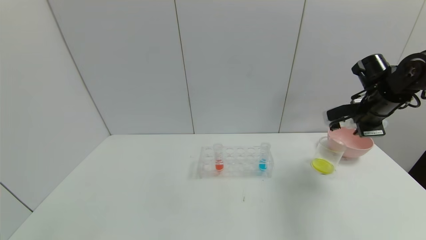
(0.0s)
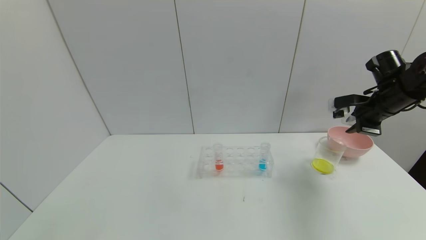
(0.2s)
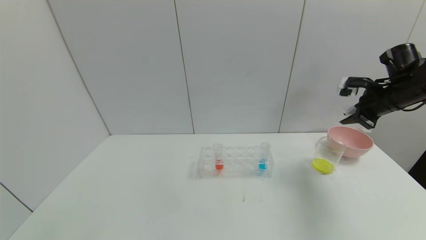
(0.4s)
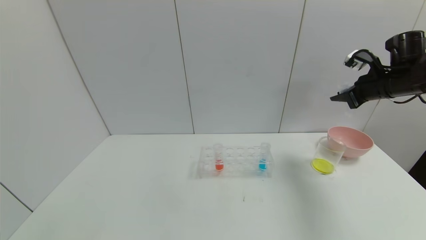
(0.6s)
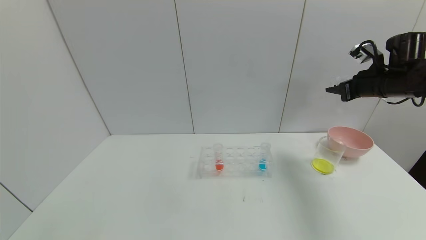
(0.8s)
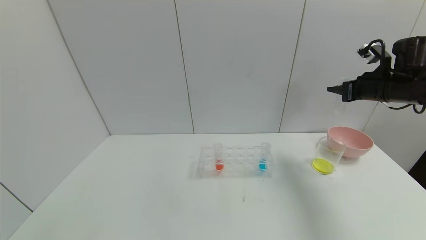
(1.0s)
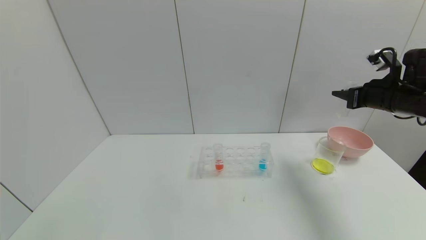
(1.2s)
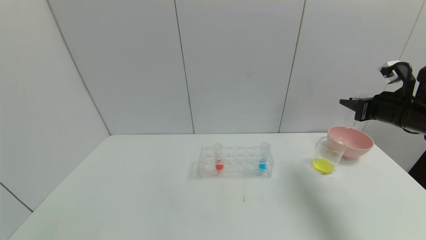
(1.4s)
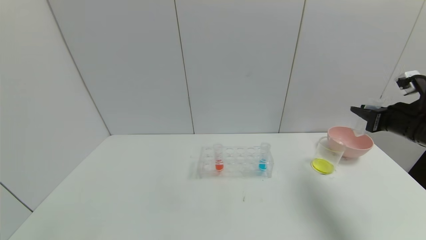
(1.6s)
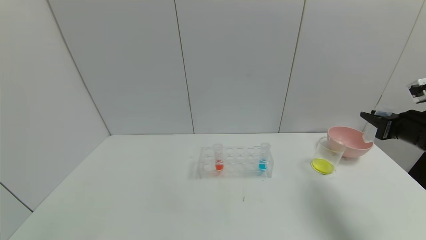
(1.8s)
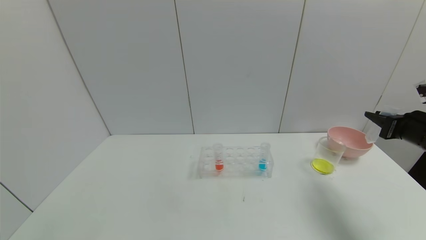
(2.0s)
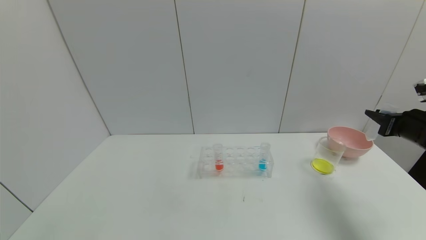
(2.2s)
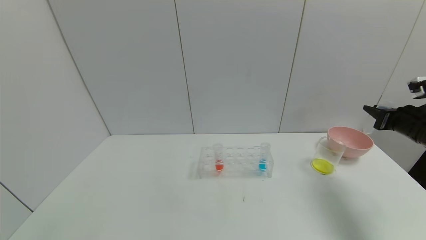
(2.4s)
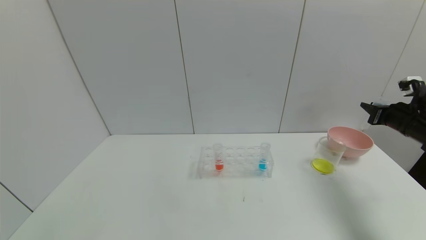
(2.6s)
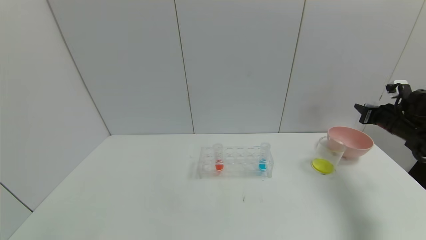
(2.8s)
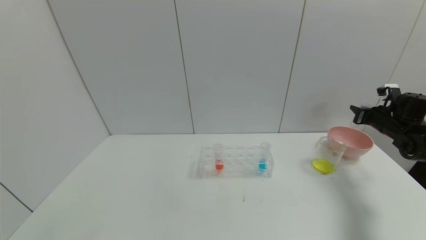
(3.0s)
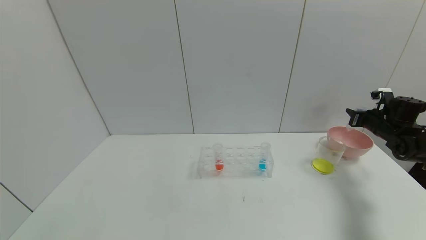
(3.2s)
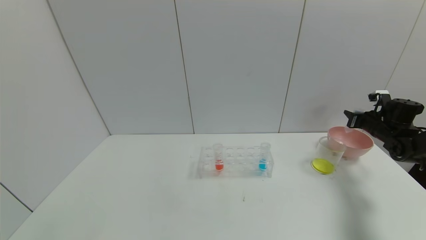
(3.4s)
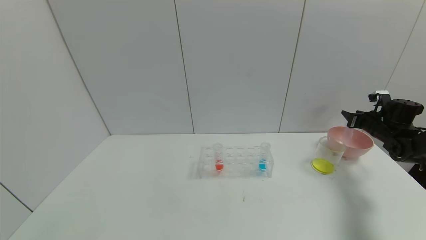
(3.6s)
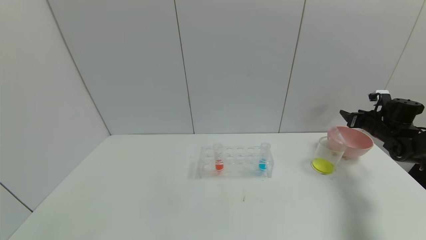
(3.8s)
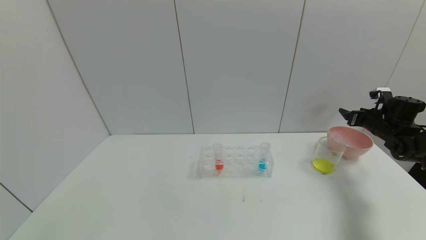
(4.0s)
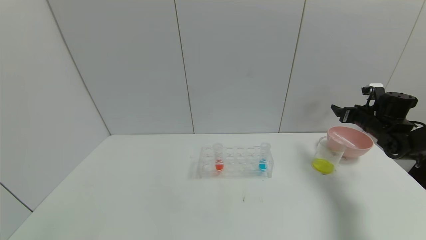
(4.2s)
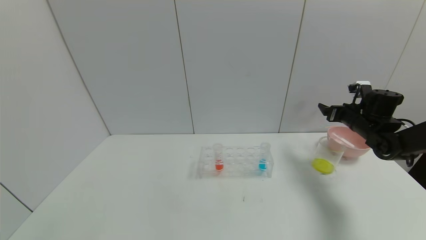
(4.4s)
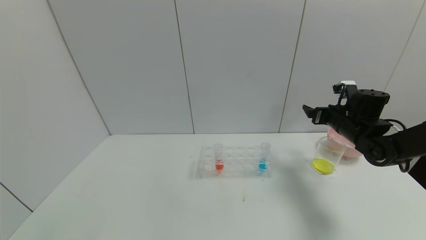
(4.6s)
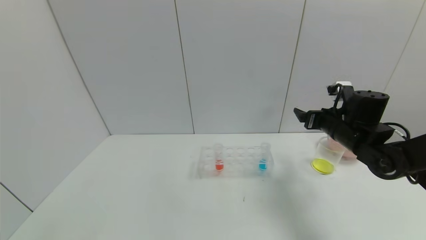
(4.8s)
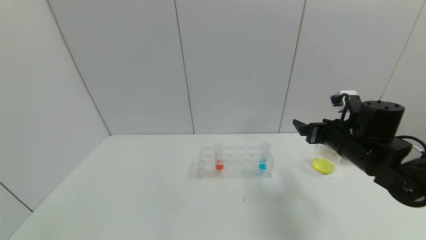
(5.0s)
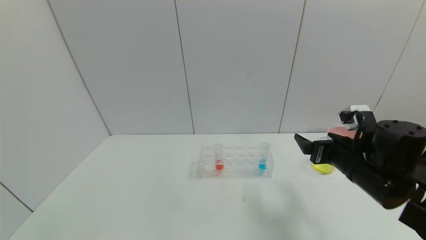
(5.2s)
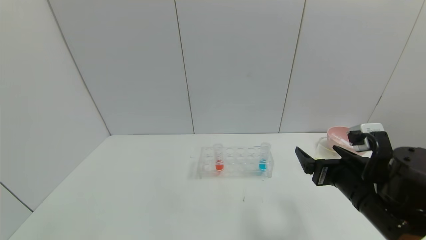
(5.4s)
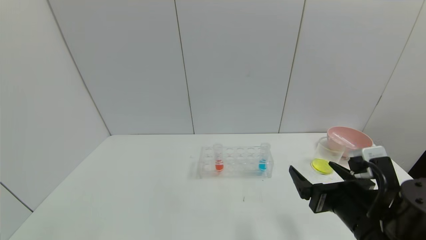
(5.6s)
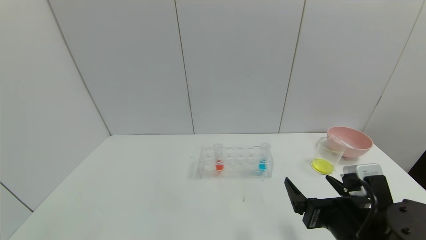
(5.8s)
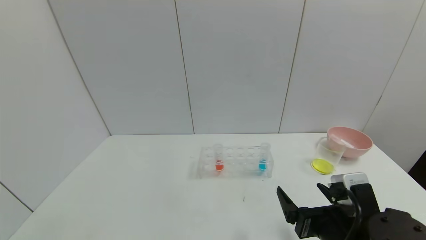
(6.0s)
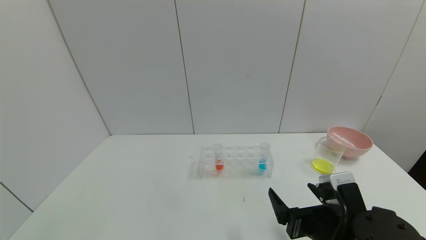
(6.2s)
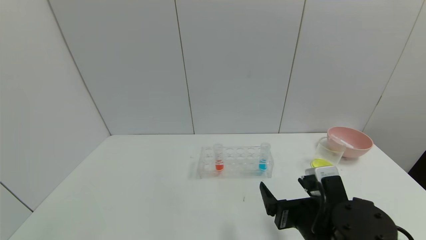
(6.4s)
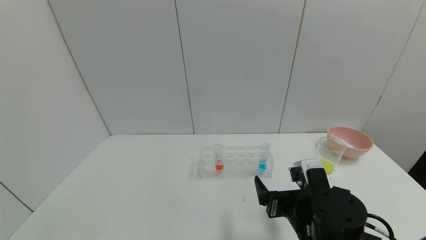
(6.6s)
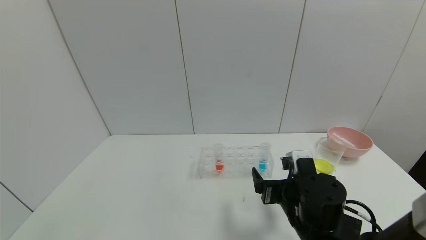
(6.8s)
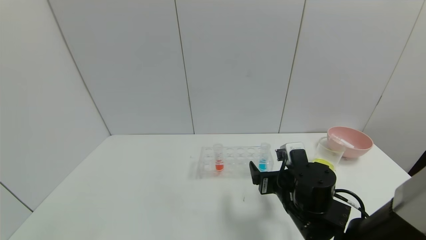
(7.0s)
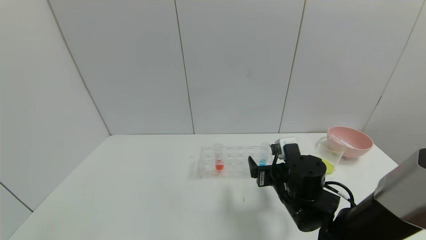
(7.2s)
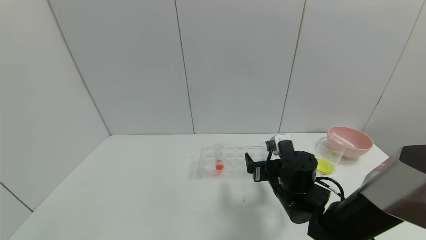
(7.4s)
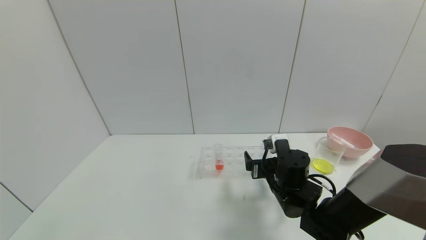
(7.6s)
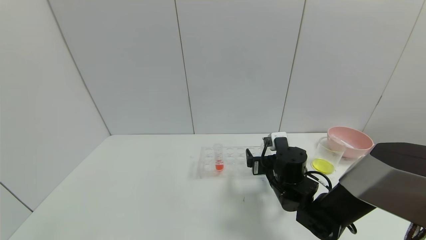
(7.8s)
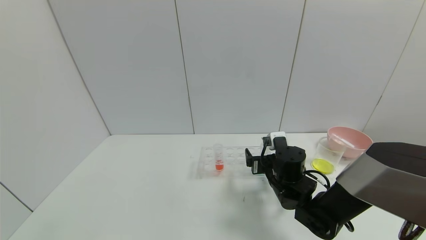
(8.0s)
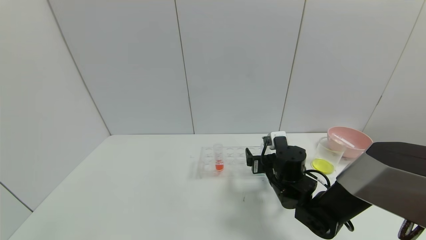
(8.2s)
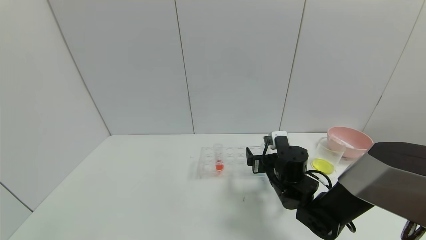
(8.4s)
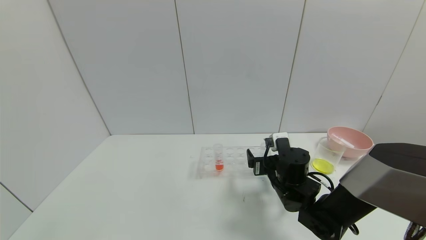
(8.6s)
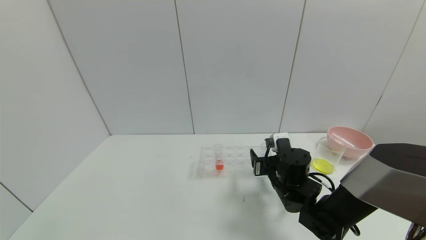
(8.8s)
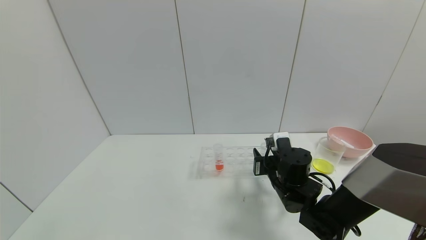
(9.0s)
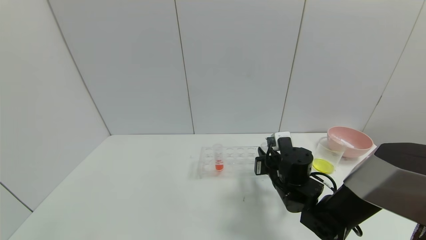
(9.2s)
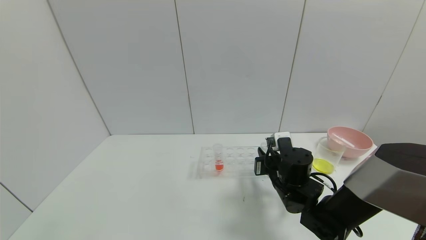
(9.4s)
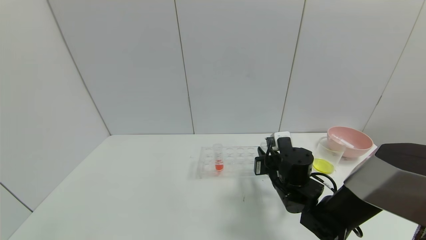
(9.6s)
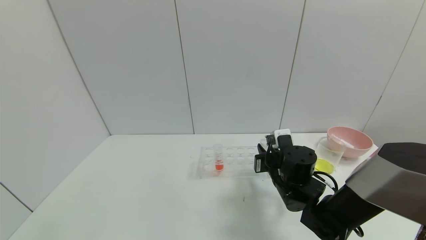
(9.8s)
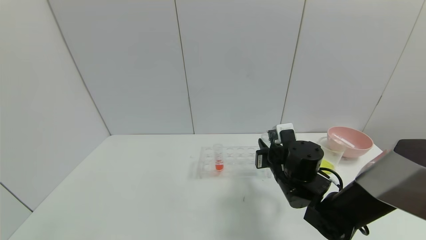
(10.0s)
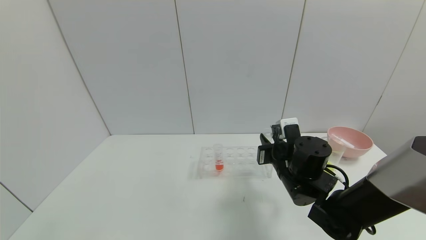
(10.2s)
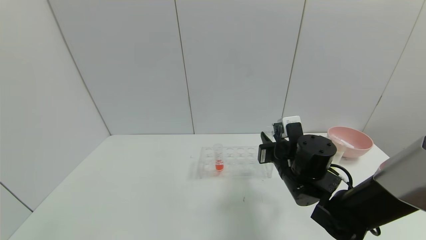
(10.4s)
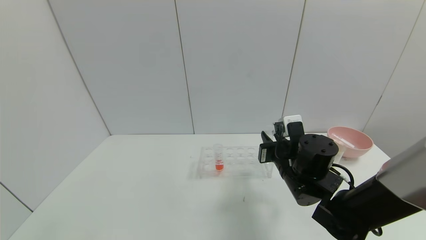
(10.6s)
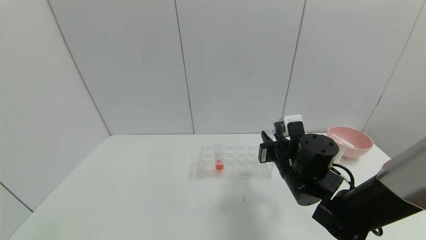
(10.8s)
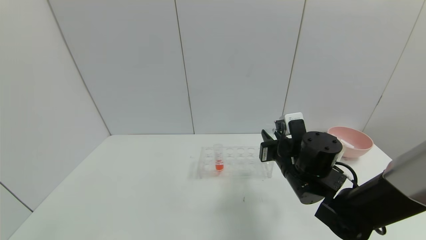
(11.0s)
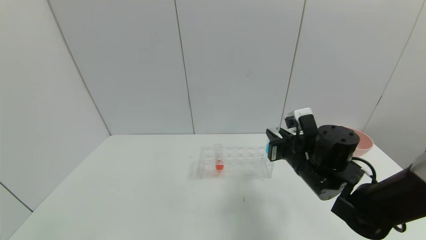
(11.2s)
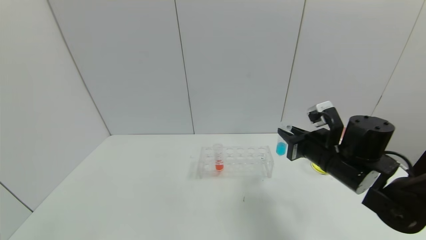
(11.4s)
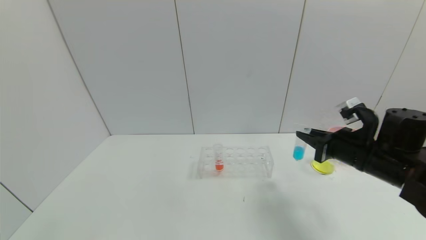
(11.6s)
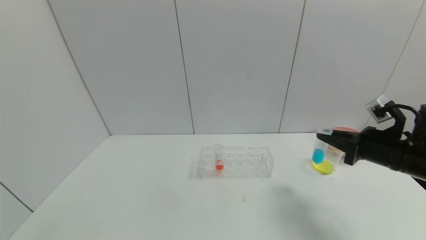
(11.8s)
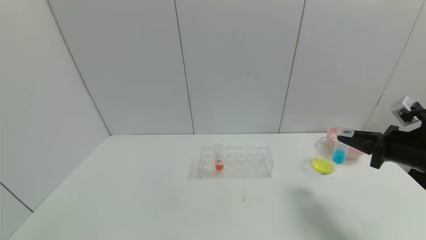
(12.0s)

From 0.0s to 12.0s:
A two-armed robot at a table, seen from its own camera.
Task of the whole recording: pick up the test tube with yellow pigment and the test tube with blue pigment by grippers and pour them into the beaker.
Step, from 0.0s to 4.2s: Place the test tube into the bowl with the right gripper.
Step, from 4.4s to 9.2s: Grasp the blue reagent with the right gripper.
From 0.0s to 1.6s: The right gripper moves backward, about 10 cm.
From 1.6s to 3.0s: The right gripper is displaced forward, to the right and downward by about 15 cm.
From 3.0s to 4.4s: The right gripper shifts approximately 10 cm to the left, and opens up.
From 4.4s to 6.0s: The right gripper moves backward and to the left, approximately 35 cm.
From 6.0s to 7.6s: The right gripper goes about 15 cm forward.
From 7.6s to 9.0s: The right gripper closes up.
From 9.0s to 10.4s: The right gripper moves some 5 cm.
From 10.4s to 12.0s: The right gripper shifts roughly 25 cm to the right.

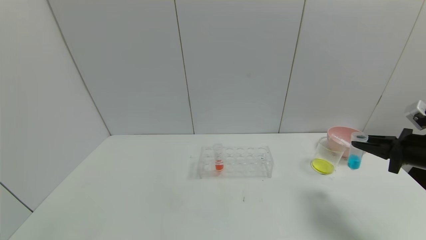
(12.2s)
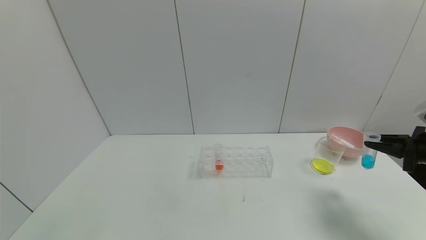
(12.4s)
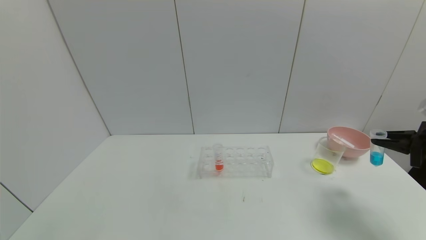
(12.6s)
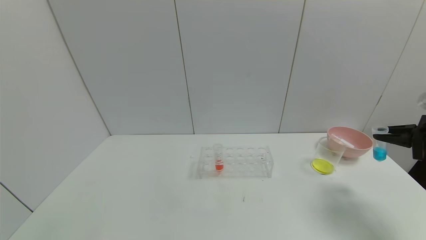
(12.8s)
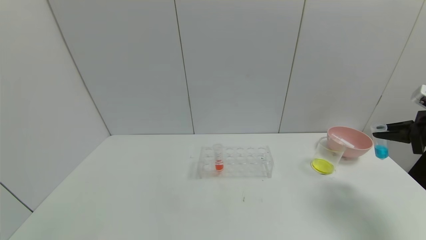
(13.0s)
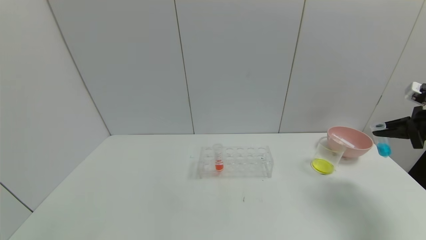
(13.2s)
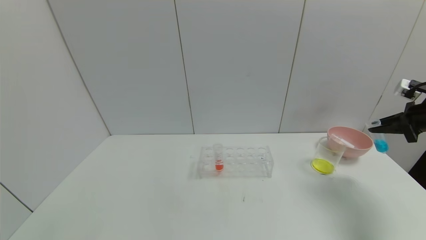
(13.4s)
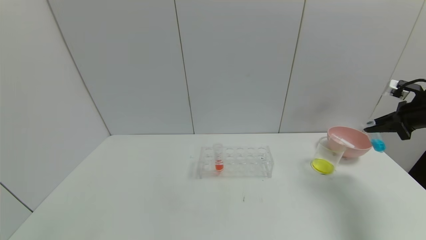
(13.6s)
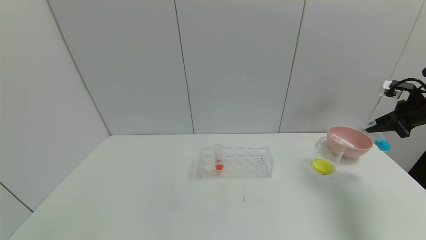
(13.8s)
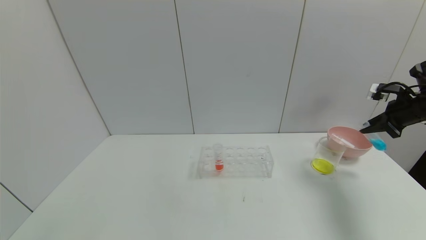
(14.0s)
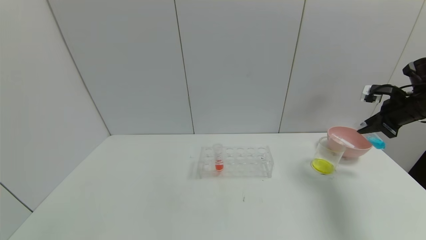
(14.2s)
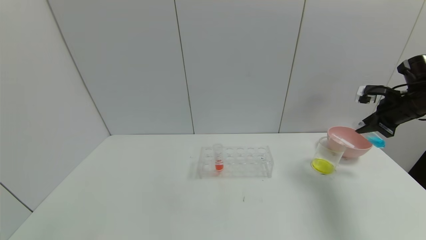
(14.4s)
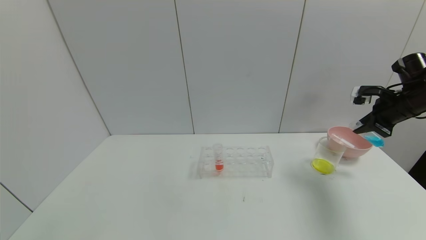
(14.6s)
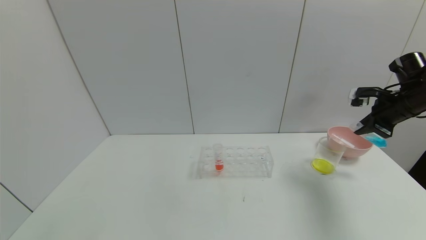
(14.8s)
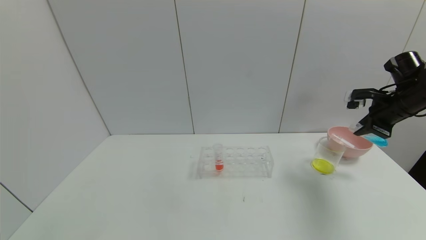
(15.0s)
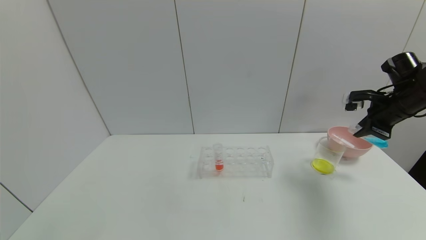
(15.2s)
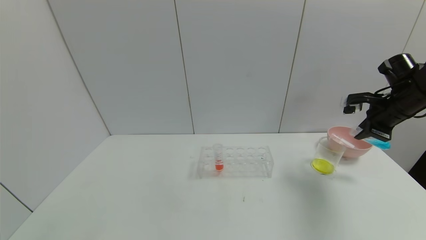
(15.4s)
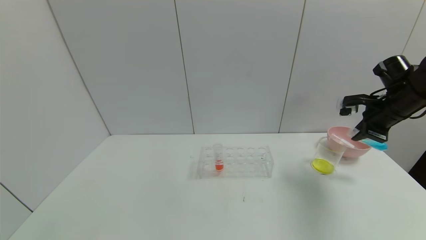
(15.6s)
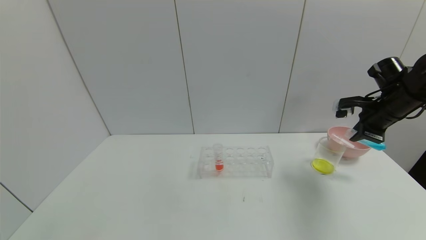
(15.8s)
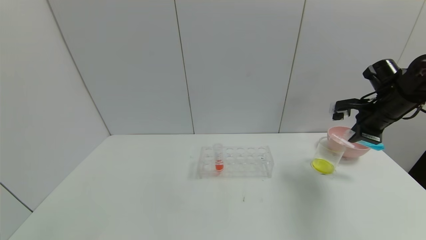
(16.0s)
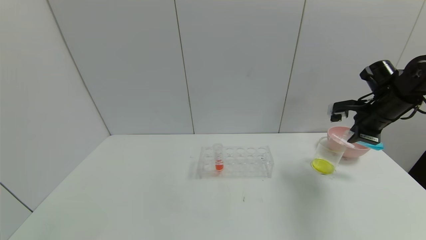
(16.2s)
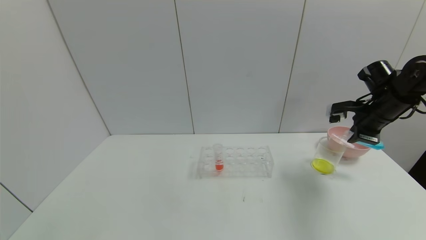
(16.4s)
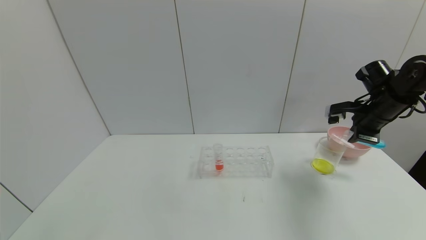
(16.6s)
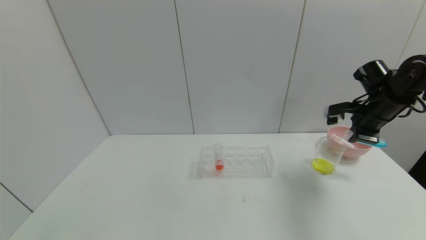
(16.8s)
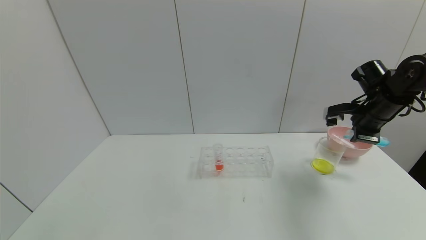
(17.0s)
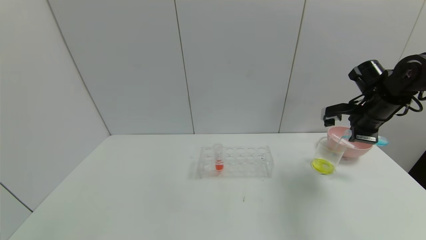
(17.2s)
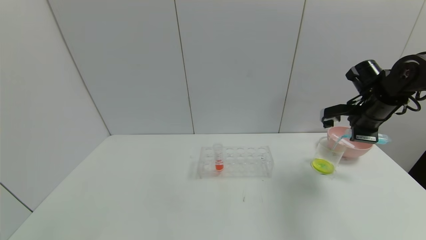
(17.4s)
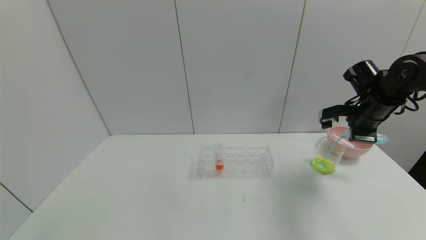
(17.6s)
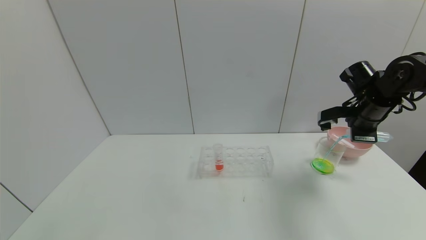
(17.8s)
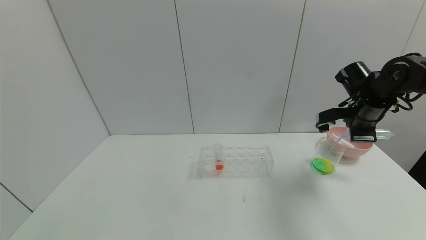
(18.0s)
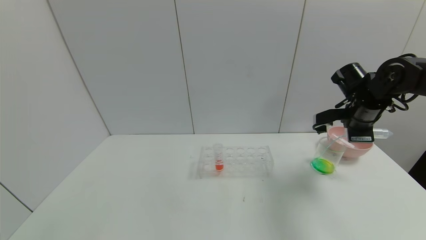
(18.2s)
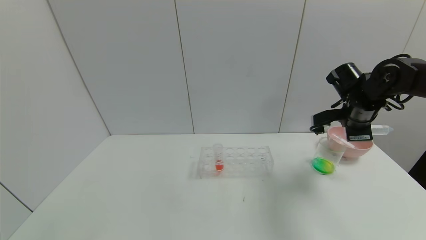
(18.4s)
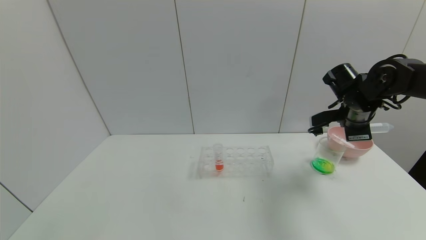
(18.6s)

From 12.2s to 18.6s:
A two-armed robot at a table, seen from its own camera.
Task of the whole recording: pick up the test tube with yellow pigment and the test tube with blue pigment by grippers and pour them into the beaker.
From 12.2s to 13.8s: The right gripper is displaced forward, upward and to the right by about 15 cm.
From 13.8s to 15.4s: The right gripper moves to the left, roughly 10 cm.
From 15.4s to 17.0s: The grippers move only a little.
From 17.0s to 18.6s: The right gripper shifts roughly 5 cm to the left.
